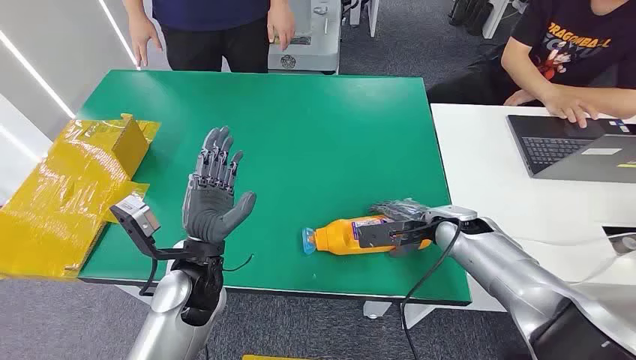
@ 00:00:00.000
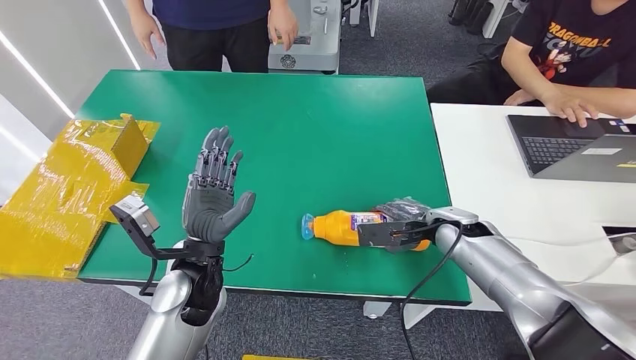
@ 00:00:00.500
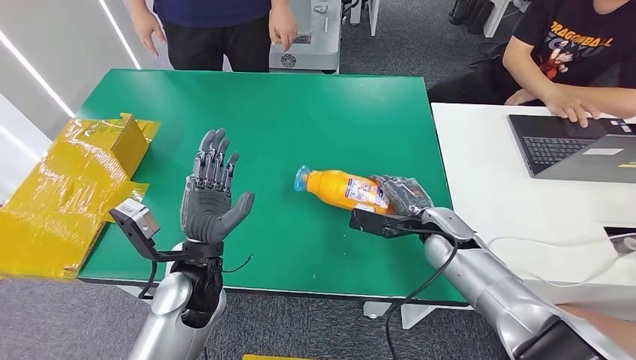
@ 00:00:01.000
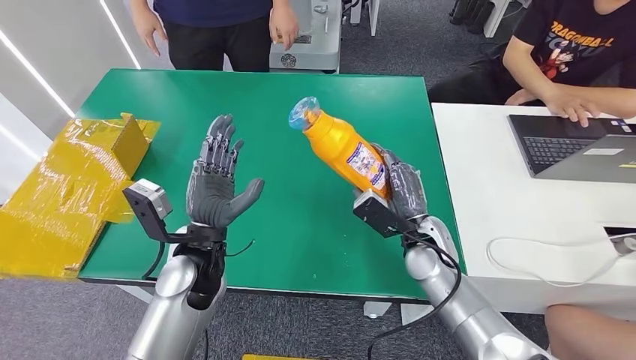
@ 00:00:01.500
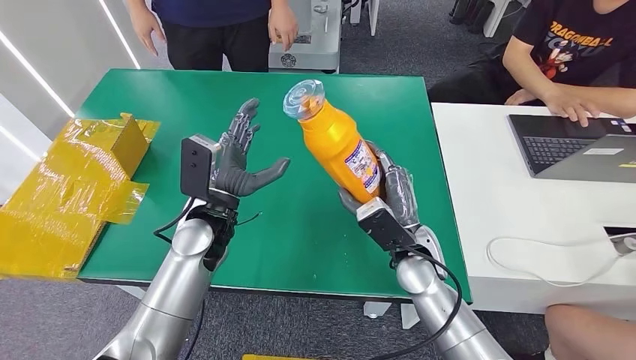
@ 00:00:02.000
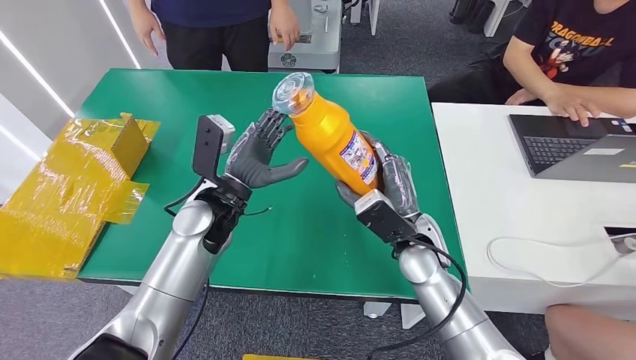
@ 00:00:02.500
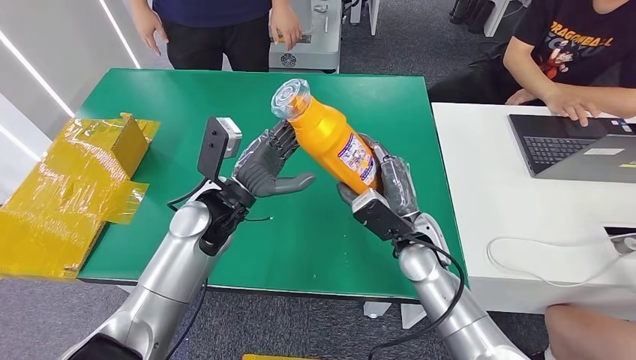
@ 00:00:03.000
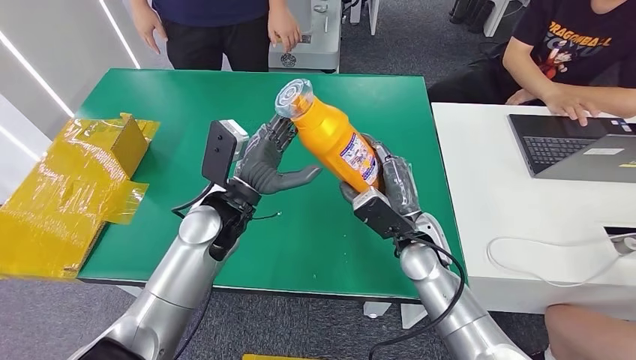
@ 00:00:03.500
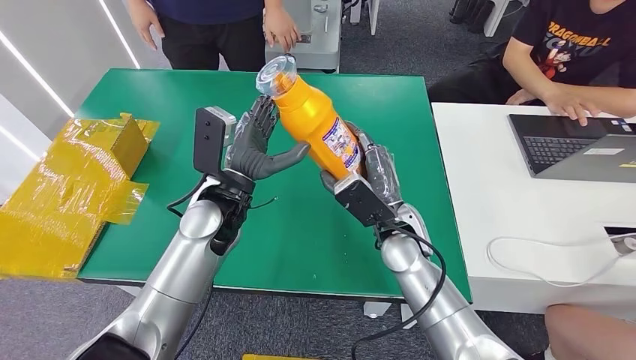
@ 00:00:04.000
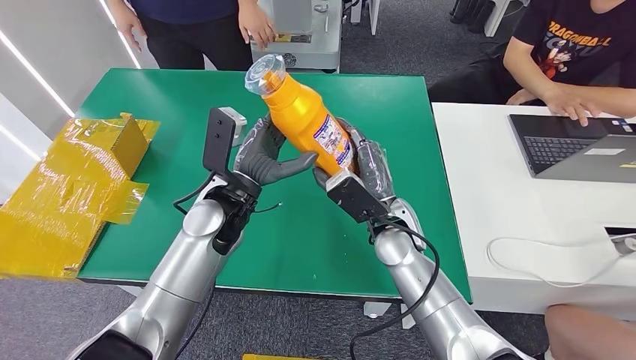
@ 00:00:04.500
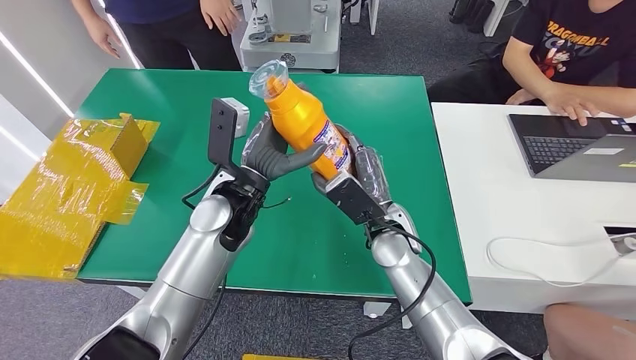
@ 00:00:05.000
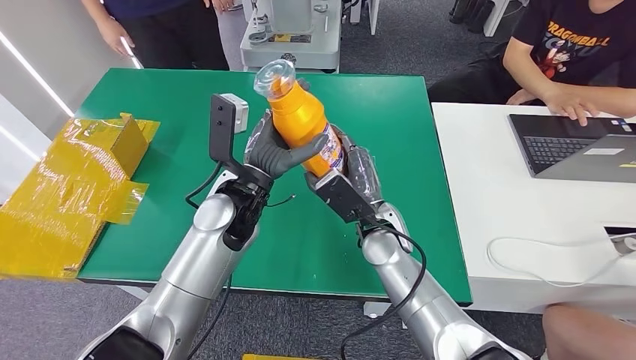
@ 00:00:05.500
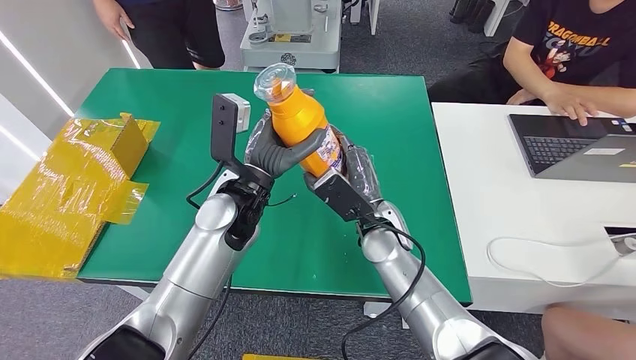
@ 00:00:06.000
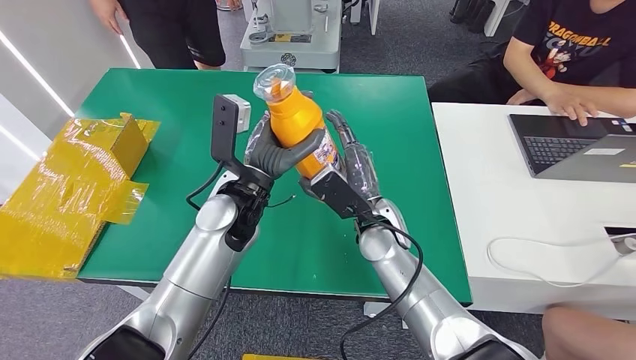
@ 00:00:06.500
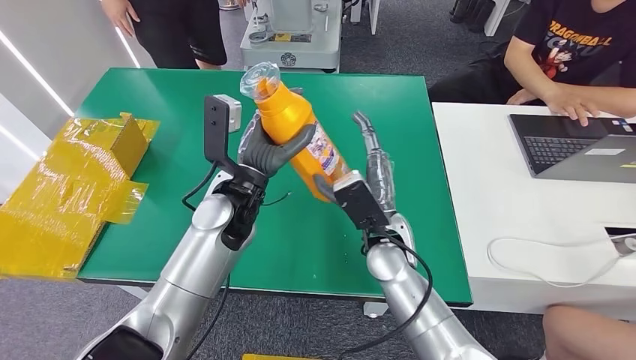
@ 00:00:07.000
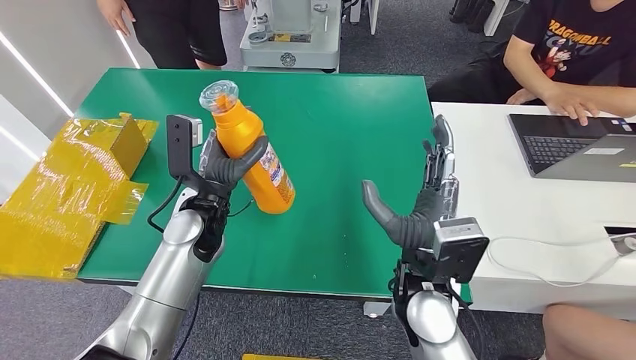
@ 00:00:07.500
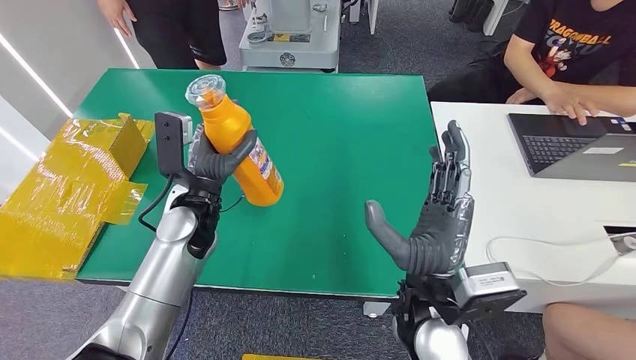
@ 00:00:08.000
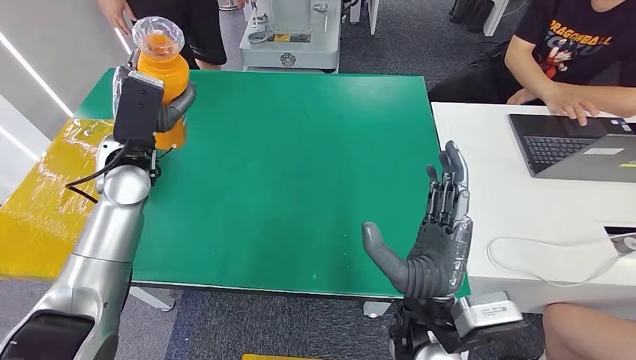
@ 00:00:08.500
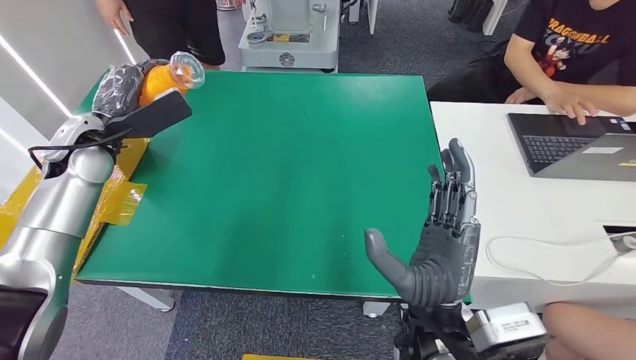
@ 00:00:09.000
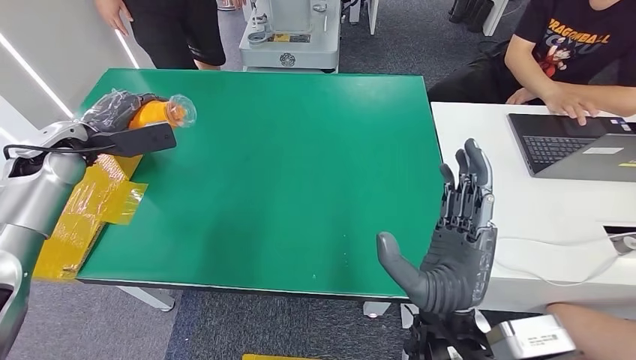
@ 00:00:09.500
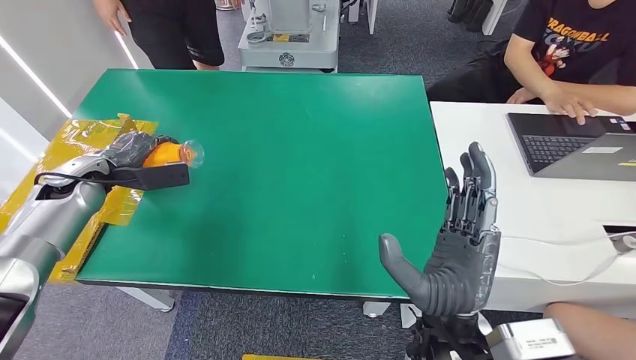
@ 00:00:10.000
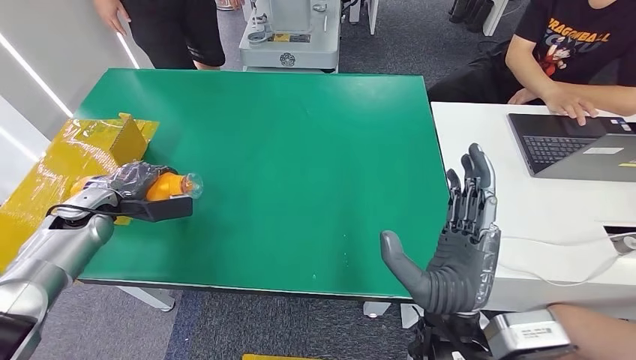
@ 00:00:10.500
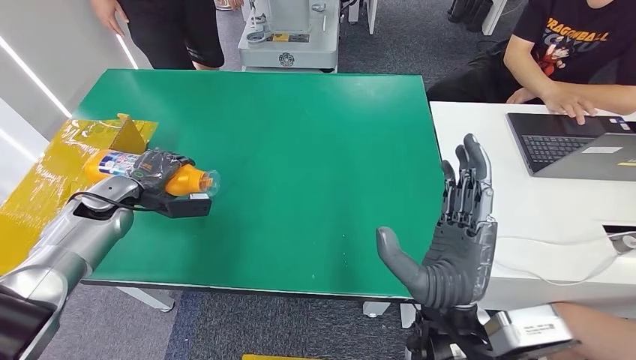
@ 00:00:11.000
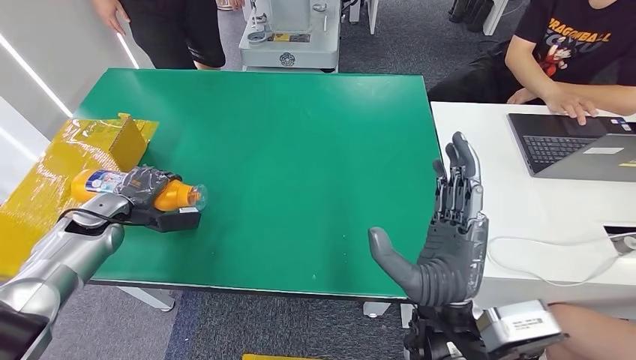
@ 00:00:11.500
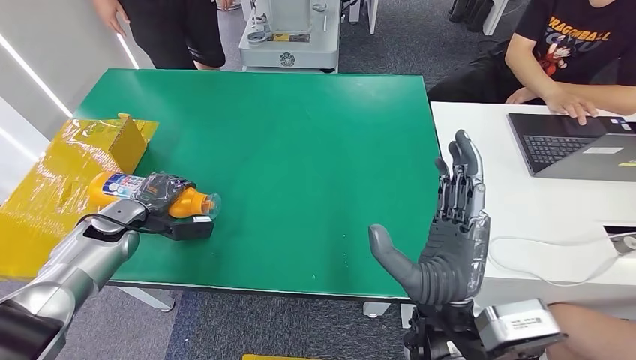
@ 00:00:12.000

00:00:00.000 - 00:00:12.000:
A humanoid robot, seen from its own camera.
Step, 00:00:00.000 - 00:00:01.500: Pick up the bottle from the table.
00:00:02.000 - 00:00:04.000: The right hand ends up some 5 cm from where it was.
00:00:04.000 - 00:00:06.000: The hands make only small movements.
00:00:10.000 - 00:00:12.000: The left hand goes approximately 10 cm downward.

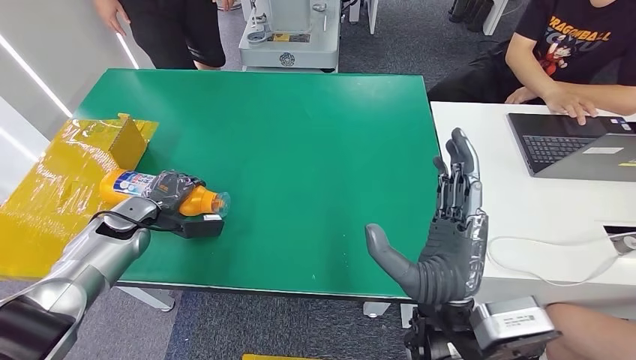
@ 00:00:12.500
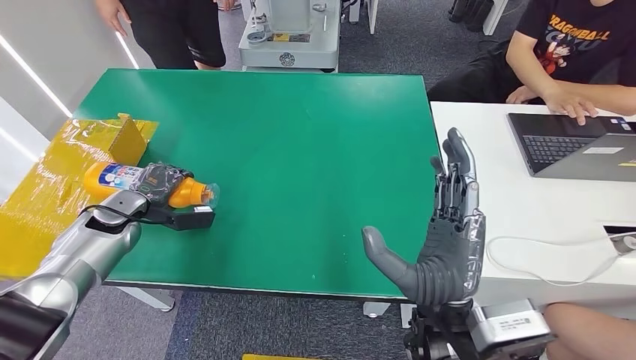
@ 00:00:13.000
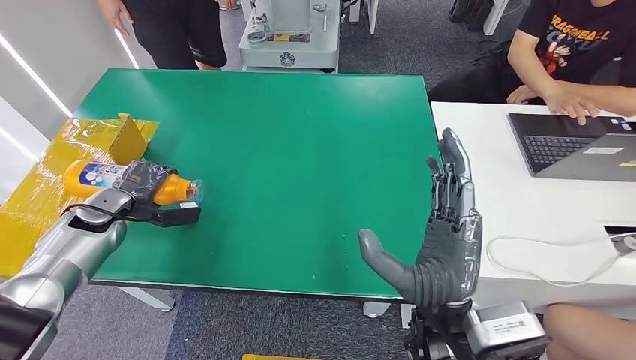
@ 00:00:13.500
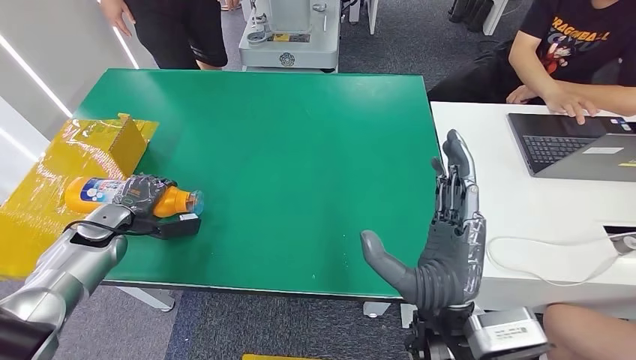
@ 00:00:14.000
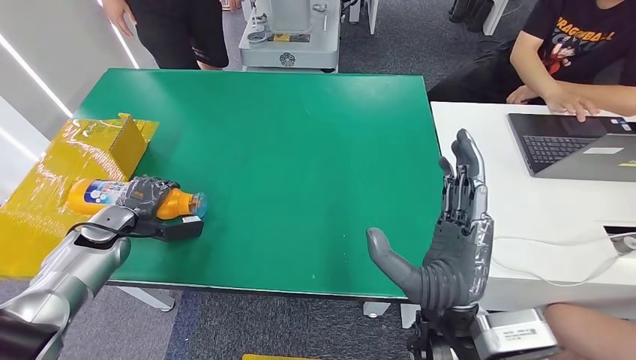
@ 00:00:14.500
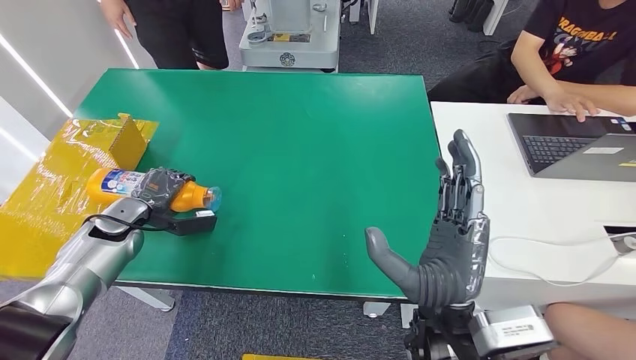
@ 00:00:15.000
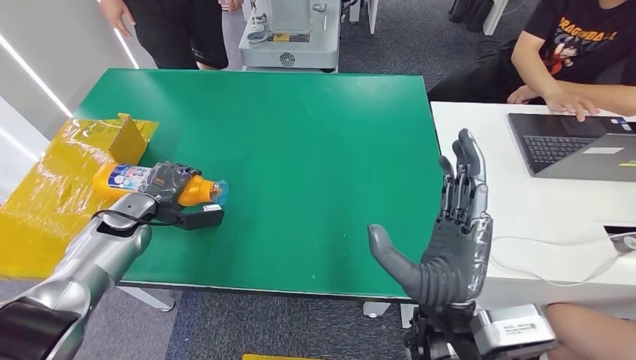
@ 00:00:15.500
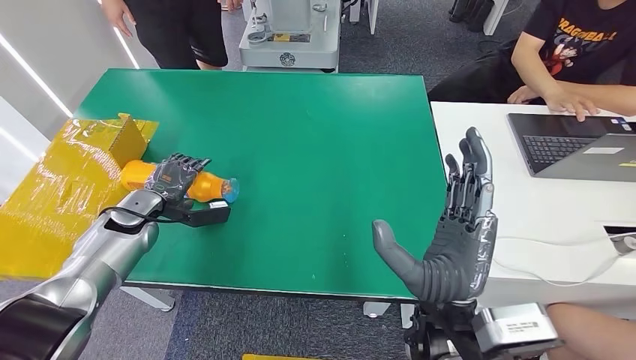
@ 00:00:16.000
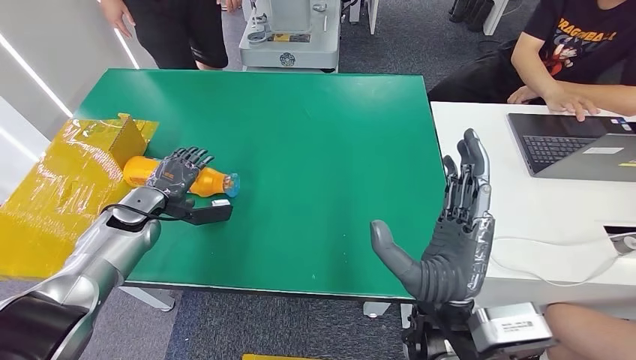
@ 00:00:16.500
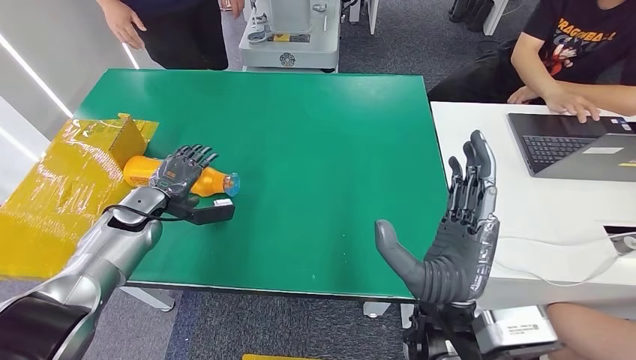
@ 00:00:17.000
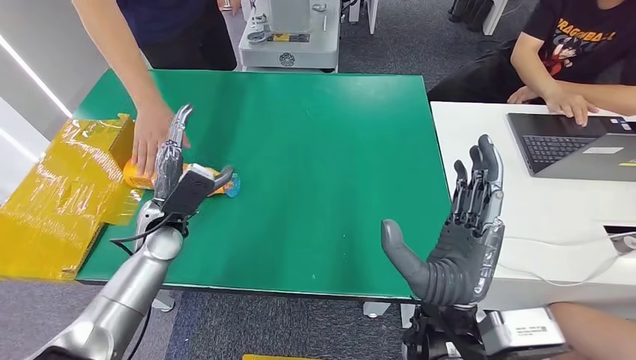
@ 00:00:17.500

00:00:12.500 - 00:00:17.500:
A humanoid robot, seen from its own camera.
Step, 00:00:12.500 - 00:00:17.500: Turn the bottle to the front side.
00:00:12.500 - 00:00:15.000: The hands stay close to where they were, moving slightly.
00:00:15.000 - 00:00:17.500: The left hand goes some 15 cm to the right.

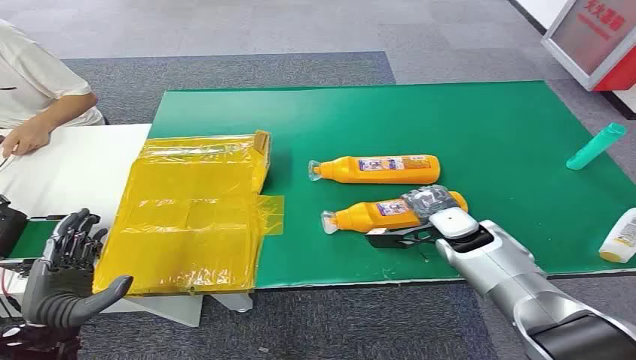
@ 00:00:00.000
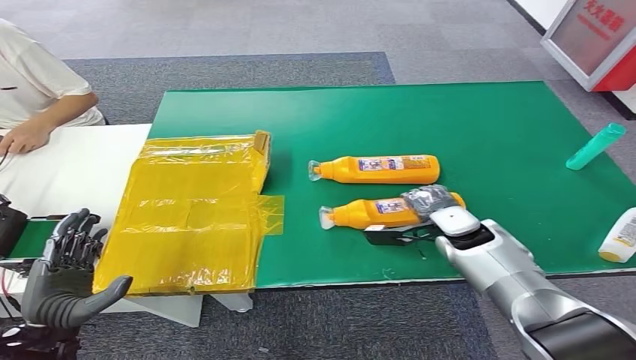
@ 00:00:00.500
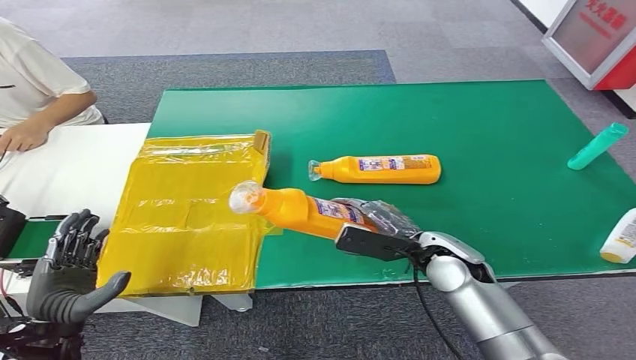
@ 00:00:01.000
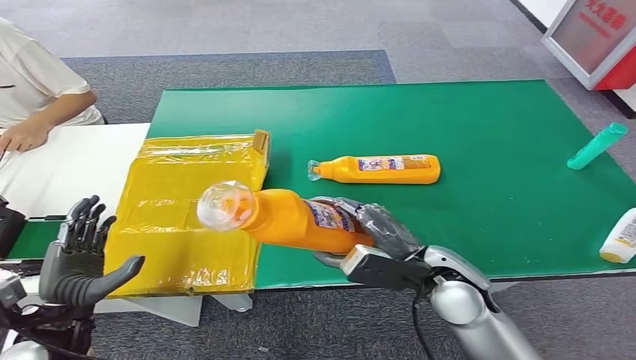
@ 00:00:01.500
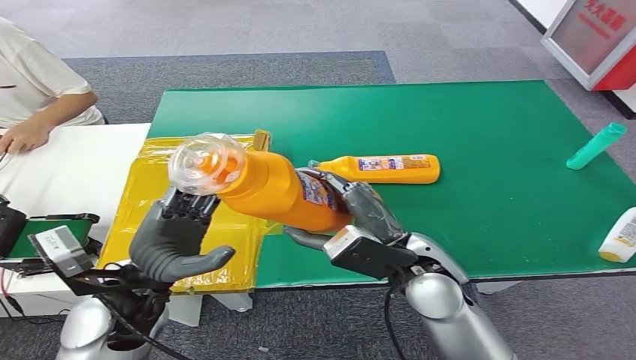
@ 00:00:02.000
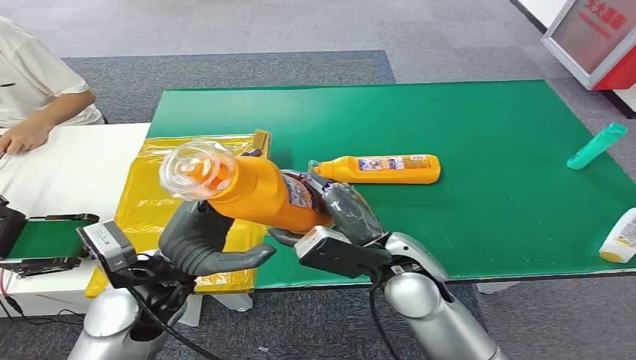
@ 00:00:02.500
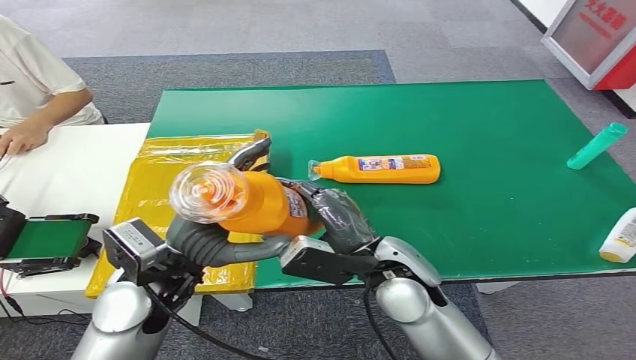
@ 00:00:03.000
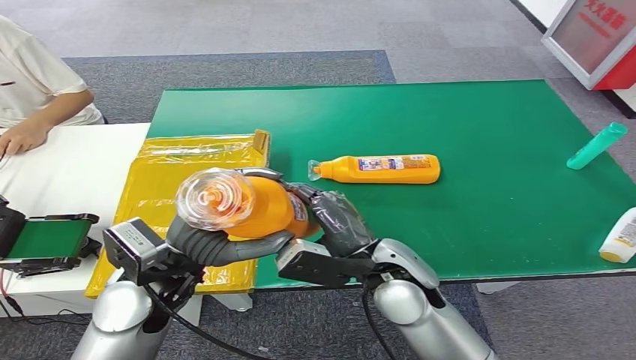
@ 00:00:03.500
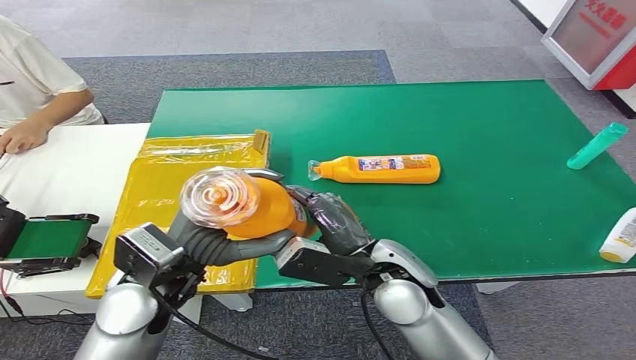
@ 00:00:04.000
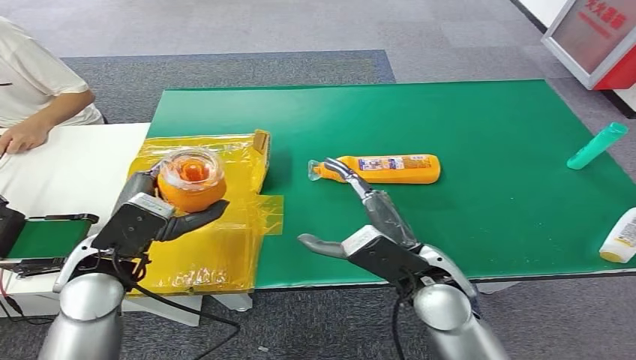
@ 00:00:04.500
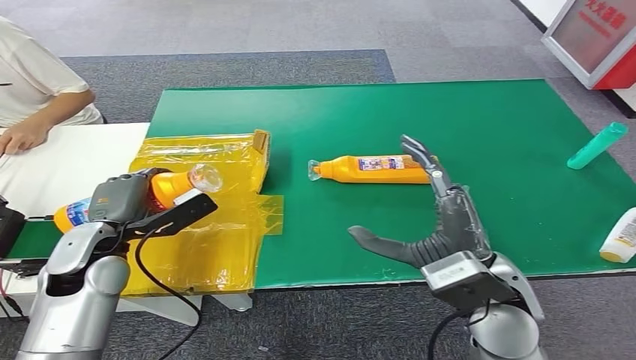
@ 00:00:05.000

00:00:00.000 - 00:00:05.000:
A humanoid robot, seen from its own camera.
Step, 00:00:00.000 - 00:00:01.500: Pick up the bottle from the table.
